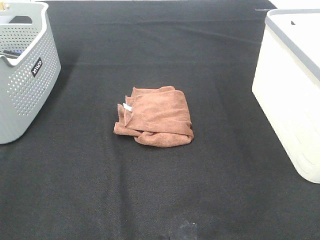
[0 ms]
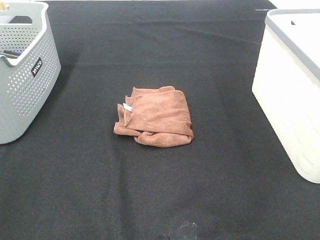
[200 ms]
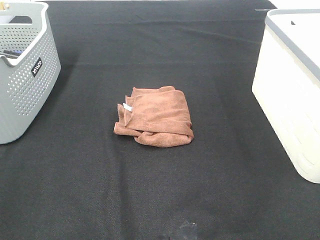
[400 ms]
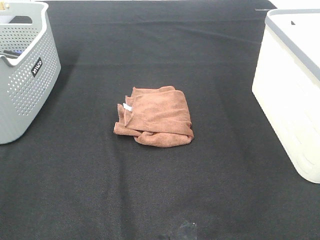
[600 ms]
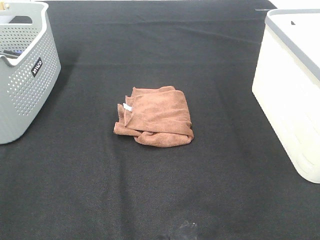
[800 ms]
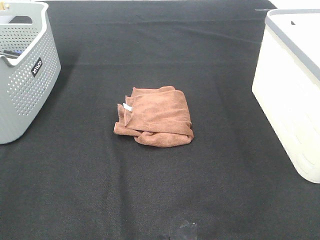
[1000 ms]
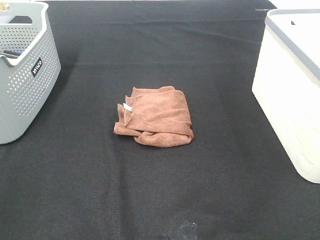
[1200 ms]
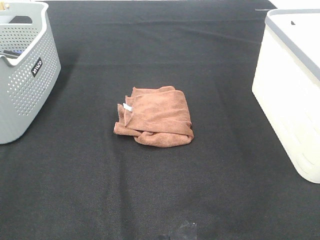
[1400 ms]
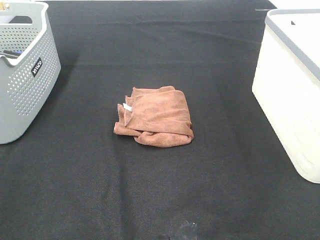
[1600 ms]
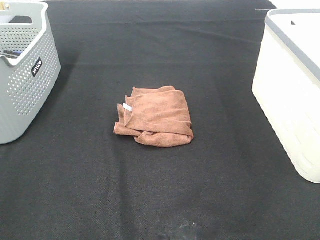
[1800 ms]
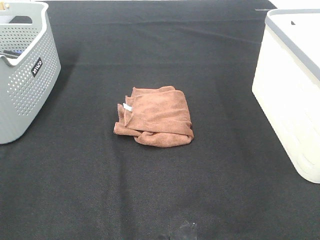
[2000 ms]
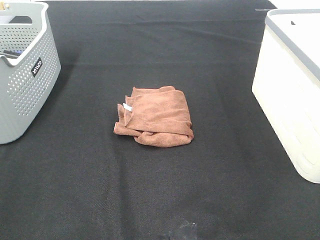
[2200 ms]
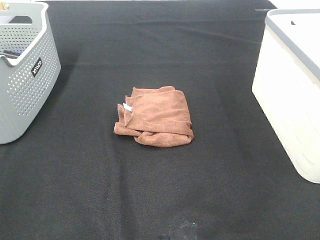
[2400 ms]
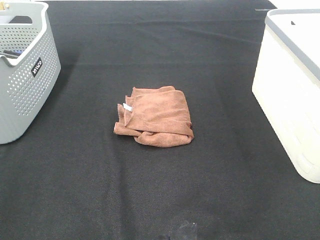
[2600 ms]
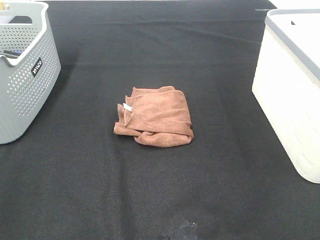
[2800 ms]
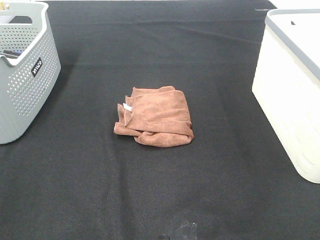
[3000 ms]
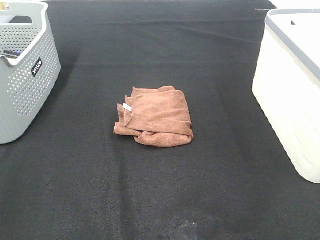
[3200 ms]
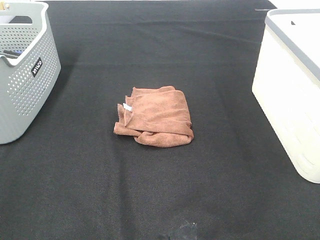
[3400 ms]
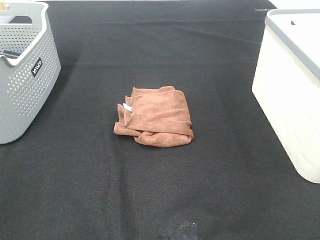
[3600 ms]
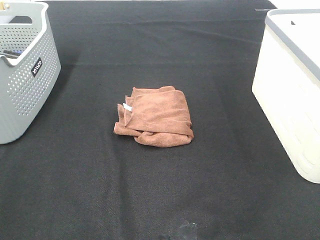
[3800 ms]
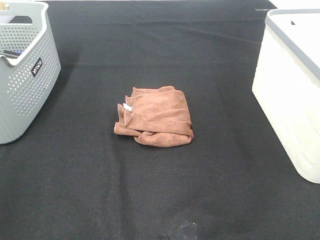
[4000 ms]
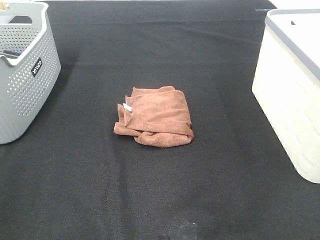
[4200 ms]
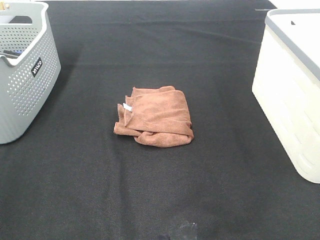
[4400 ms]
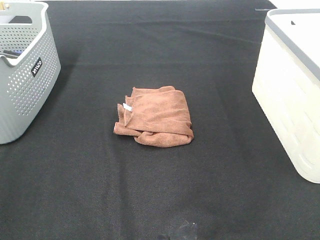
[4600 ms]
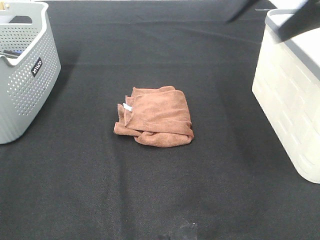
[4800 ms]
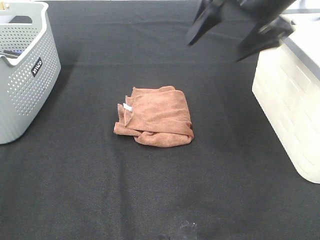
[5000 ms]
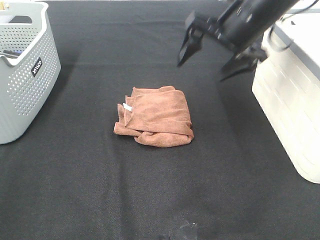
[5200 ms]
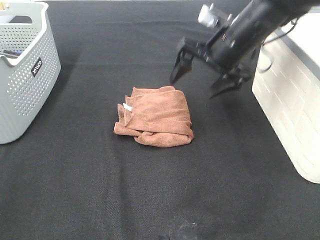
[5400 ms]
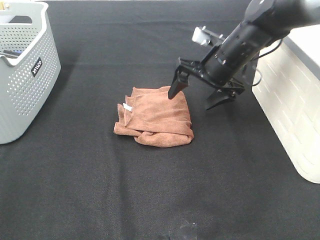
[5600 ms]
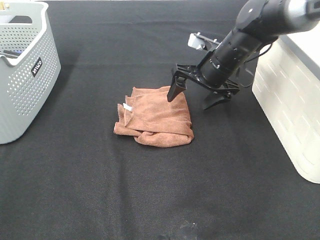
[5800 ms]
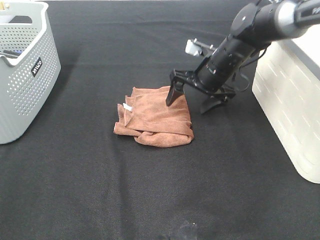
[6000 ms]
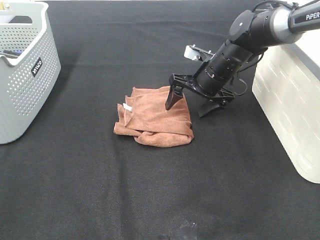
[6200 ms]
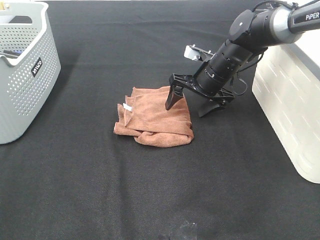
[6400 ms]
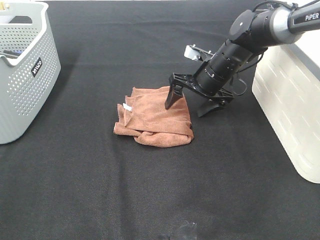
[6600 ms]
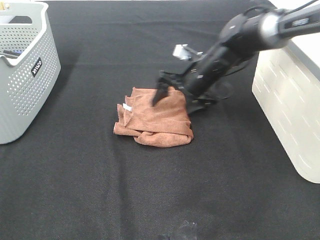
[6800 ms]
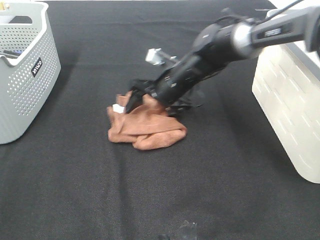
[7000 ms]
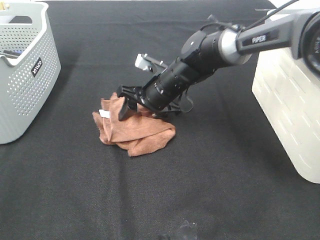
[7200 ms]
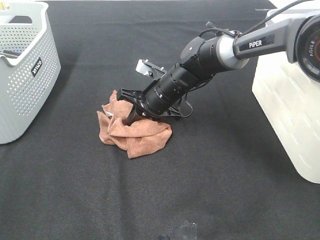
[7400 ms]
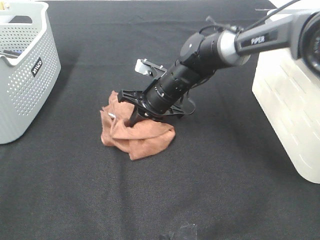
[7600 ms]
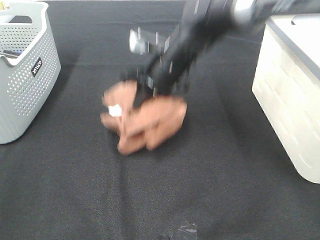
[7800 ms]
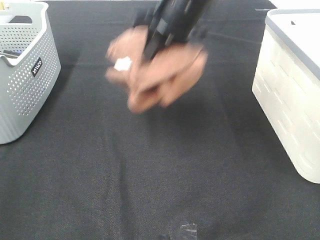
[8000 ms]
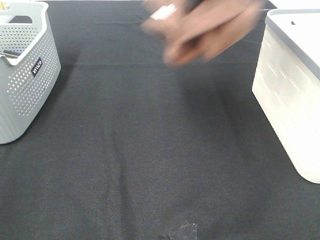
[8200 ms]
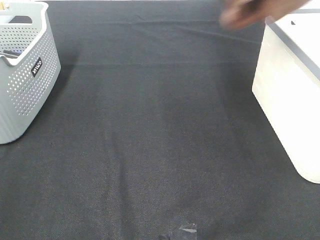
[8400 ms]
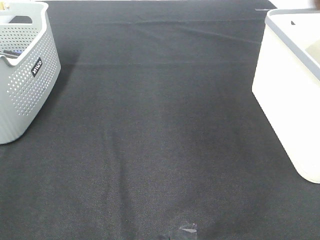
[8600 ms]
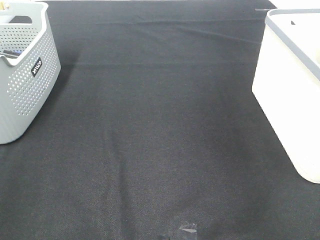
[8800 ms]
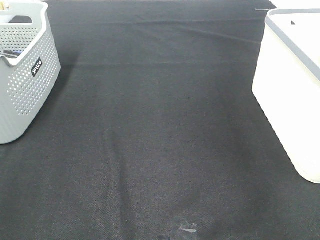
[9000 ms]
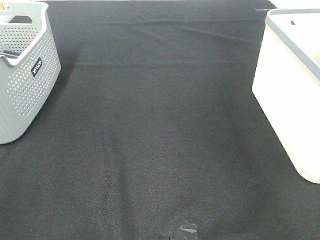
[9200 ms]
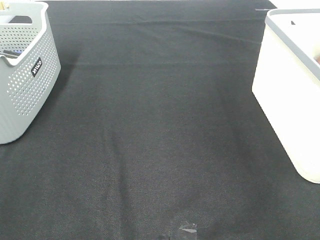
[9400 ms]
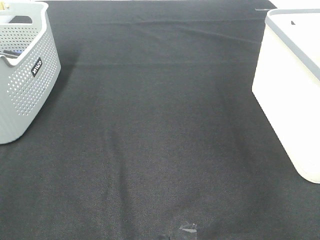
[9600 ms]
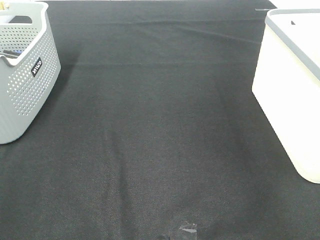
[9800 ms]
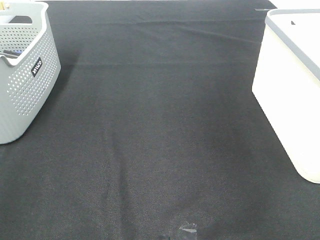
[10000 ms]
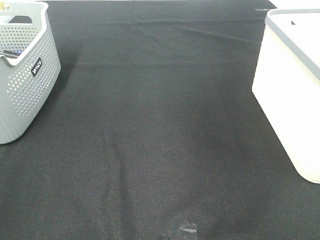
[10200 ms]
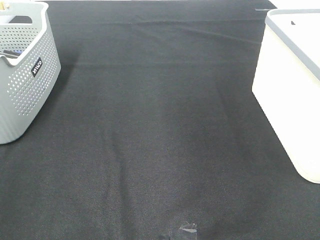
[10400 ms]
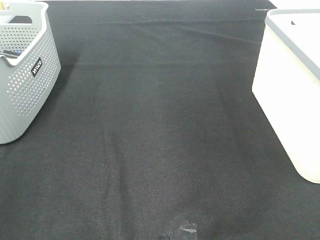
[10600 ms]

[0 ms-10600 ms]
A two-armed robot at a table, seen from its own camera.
Step, 0 ms to 7200 ms: Right hand: grab the folded brown towel.
Step, 7400 ms to 9400 ms: Right hand: place the brown towel in right basket.
0 ms to 3000 ms: Both grippers stay put.
4600 ms to 6000 ms: The right gripper is displaced downward and forward by about 35 cm.
6000 ms to 7600 ms: The right gripper is displaced to the left by some 10 cm, and closes.
7600 ms to 9000 ms: The right gripper travels to the right and upward by about 50 cm.

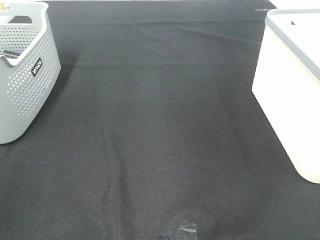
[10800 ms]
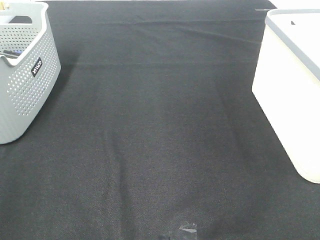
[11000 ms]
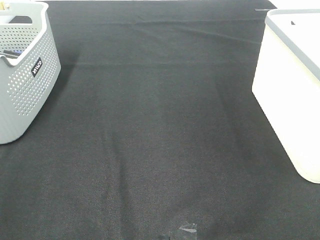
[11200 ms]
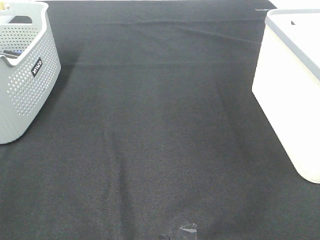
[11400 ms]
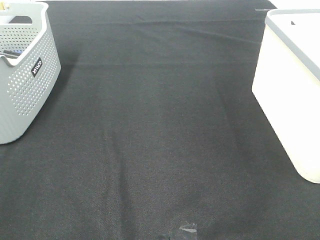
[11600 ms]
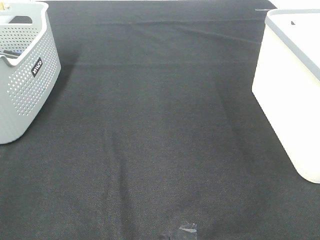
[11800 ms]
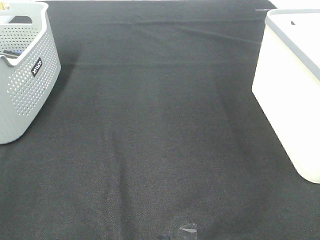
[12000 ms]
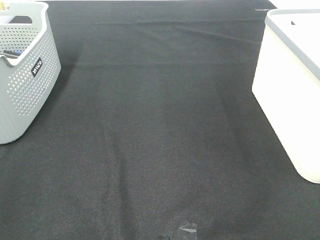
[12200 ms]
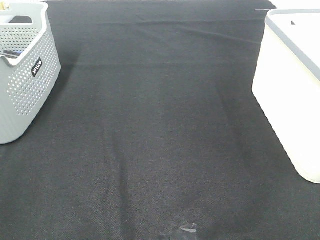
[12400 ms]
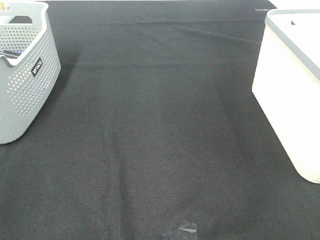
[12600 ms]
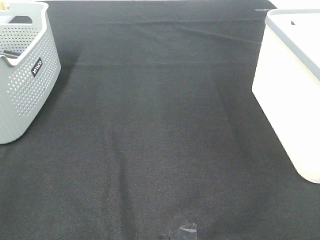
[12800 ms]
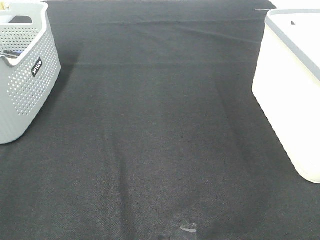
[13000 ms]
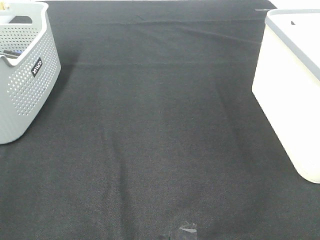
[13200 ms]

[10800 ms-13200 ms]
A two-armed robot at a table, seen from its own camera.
12000 ms to 13200 ms: Neither gripper changes place.

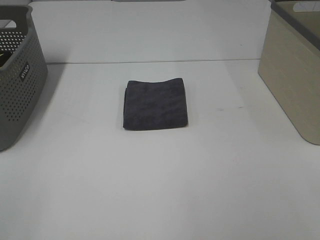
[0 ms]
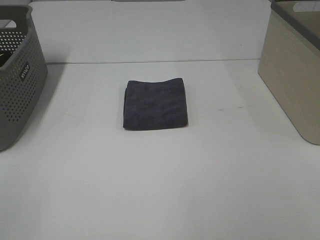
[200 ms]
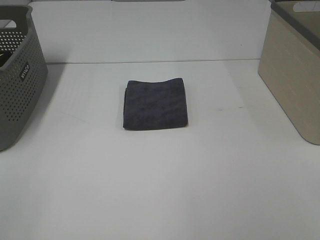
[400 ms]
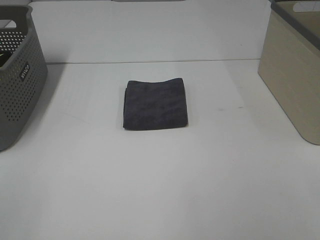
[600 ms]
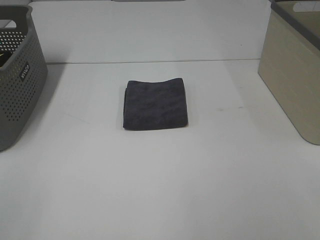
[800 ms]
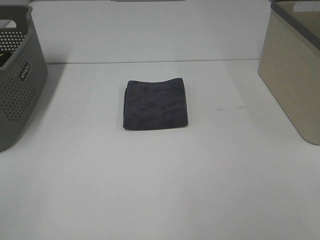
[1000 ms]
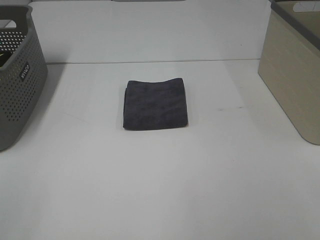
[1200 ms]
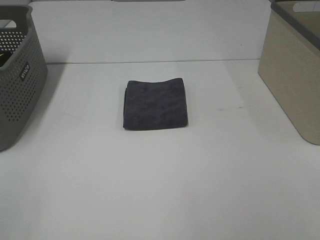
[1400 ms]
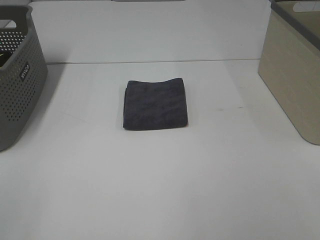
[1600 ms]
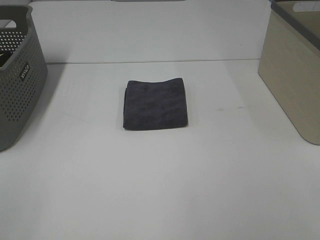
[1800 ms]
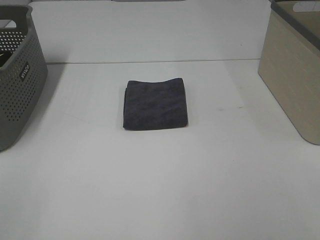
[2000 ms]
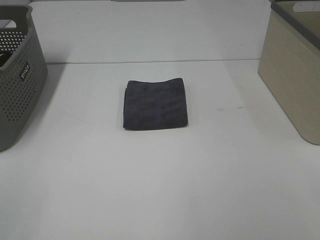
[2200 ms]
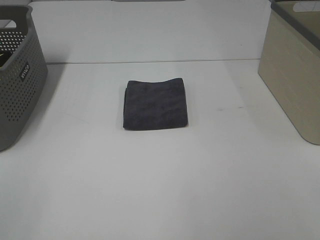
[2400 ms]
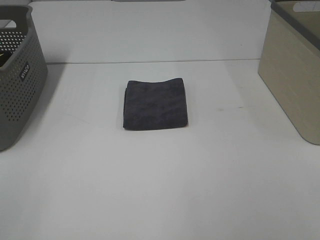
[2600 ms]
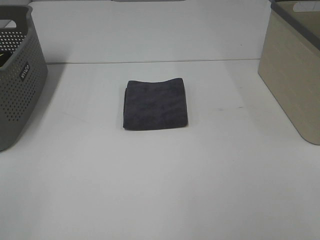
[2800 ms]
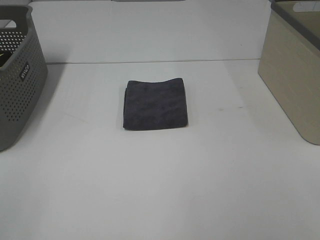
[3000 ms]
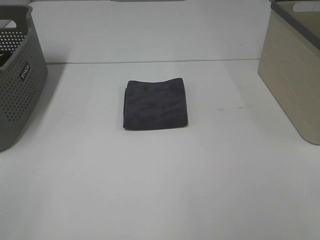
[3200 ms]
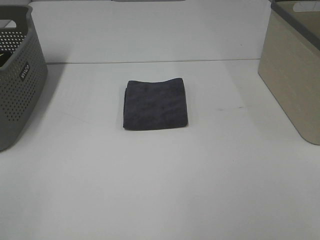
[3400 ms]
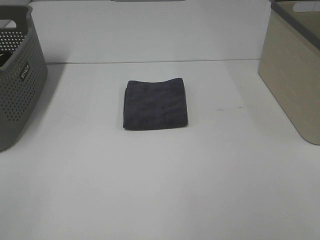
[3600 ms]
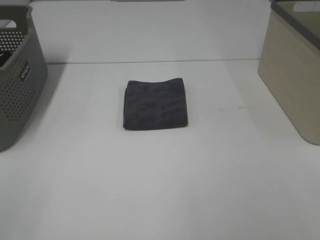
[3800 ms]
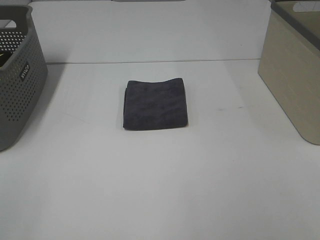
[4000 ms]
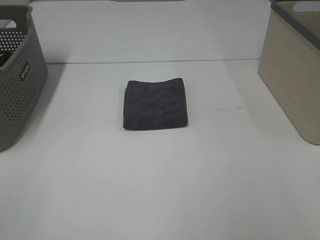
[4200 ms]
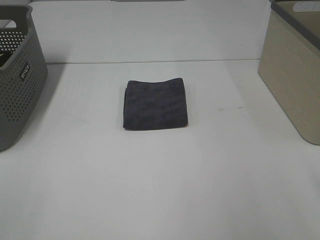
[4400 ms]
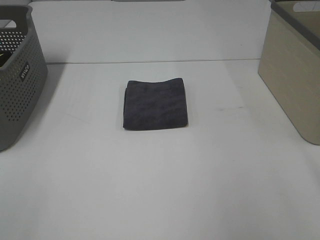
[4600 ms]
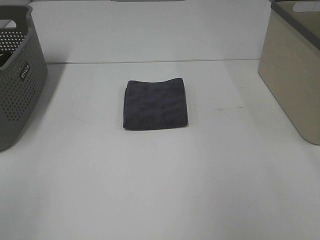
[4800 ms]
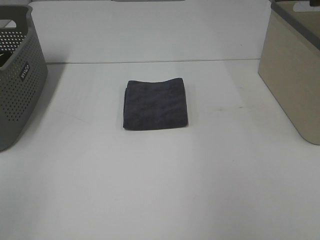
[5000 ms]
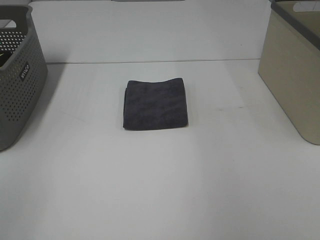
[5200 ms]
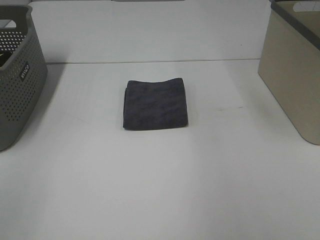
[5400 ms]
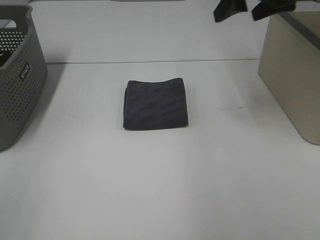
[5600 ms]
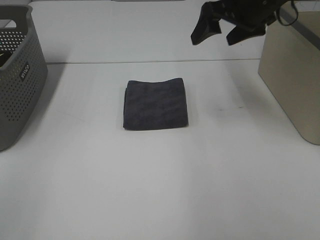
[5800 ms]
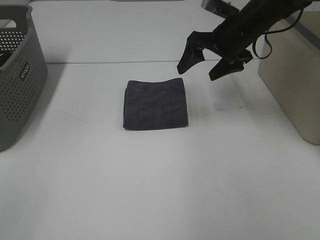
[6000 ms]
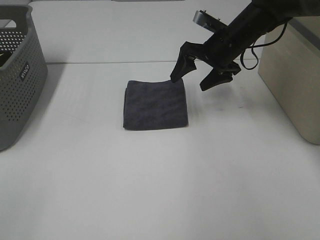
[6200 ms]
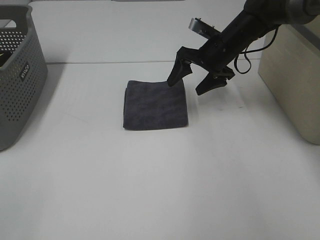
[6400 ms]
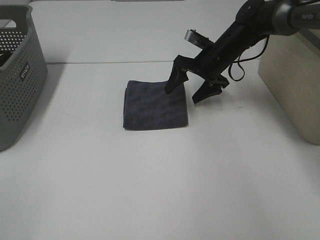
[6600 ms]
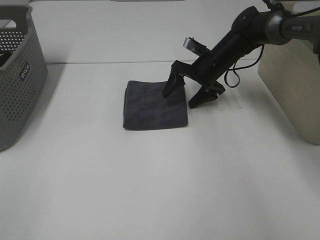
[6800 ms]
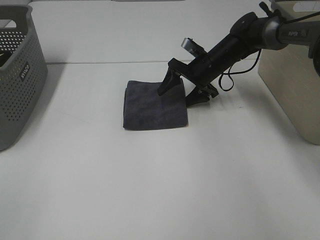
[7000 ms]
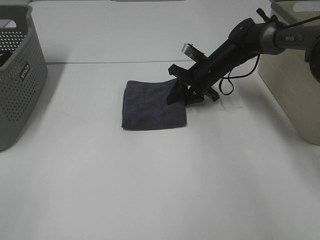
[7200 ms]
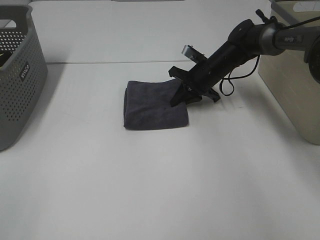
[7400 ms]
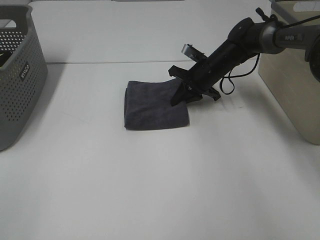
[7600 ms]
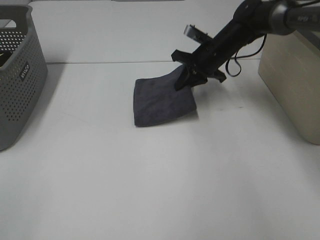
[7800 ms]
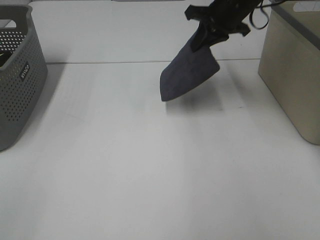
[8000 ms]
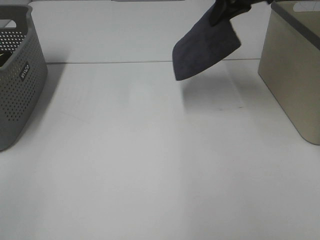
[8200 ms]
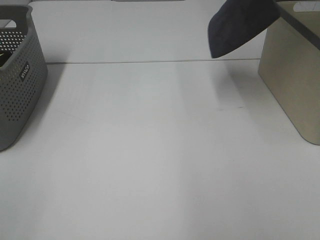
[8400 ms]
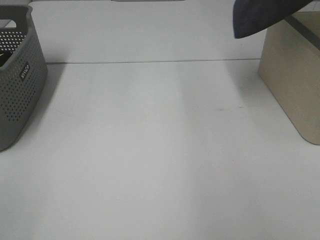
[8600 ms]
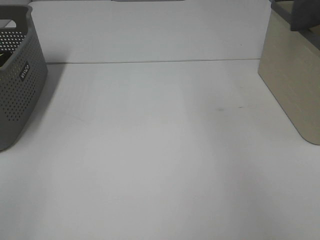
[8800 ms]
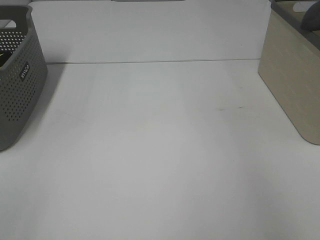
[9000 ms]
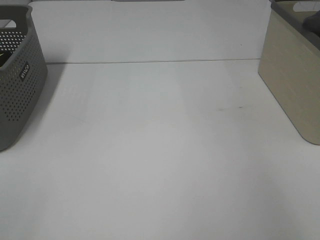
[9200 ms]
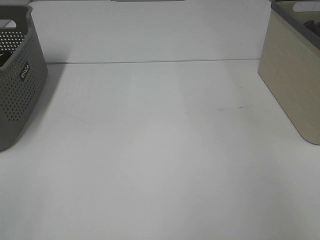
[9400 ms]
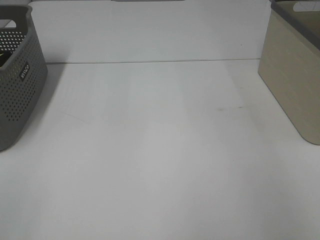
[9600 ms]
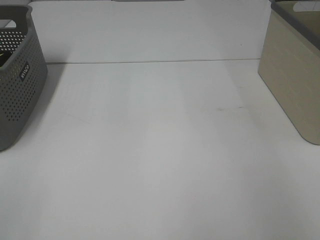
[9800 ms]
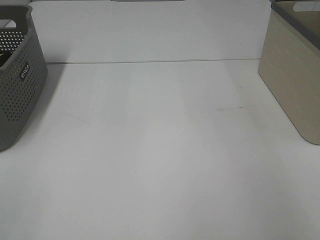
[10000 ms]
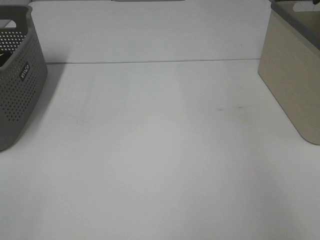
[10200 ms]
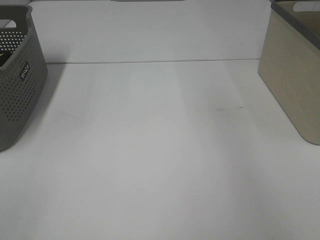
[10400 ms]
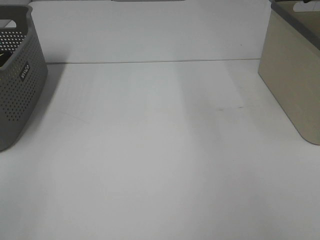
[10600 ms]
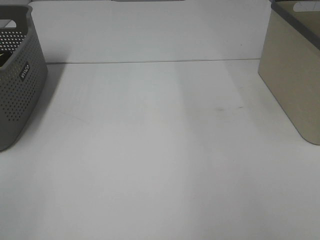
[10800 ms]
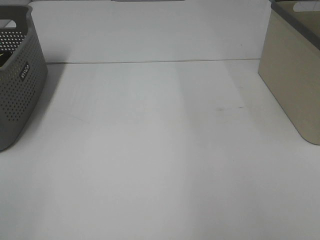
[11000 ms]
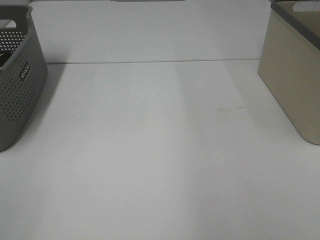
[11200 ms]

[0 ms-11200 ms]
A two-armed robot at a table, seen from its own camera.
Step, 0 ms to 7400 ms: Right hand: grab the folded grey towel.
Step, 7600 ms to 10000 ms: Right hand: place the grey towel in right basket.
0 ms to 3200 ms: Neither gripper changes place.
4800 ms to 6400 ms: The right gripper travels forward, downward and to the left by some 35 cm.
6400 ms to 8000 ms: The right gripper travels upward by approximately 10 cm, and closes.
8000 ms to 9600 ms: The right gripper heads to the right, covering approximately 25 cm, and opens its fingers.
